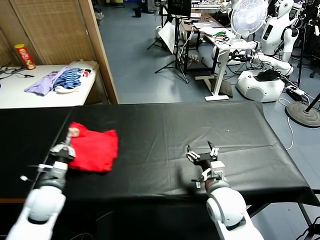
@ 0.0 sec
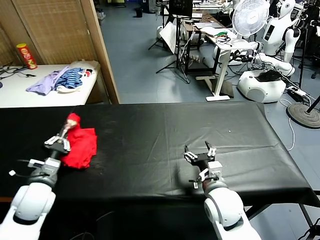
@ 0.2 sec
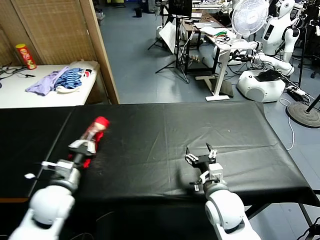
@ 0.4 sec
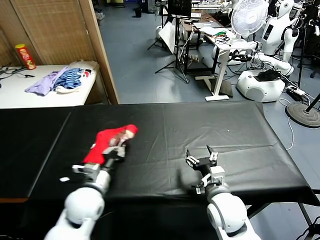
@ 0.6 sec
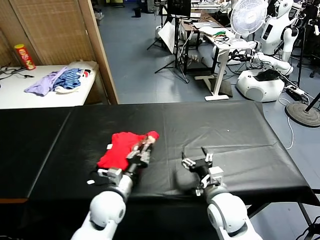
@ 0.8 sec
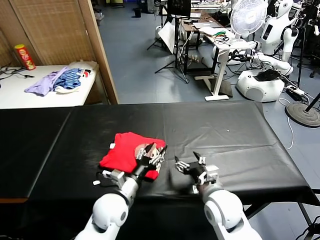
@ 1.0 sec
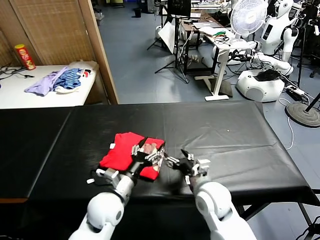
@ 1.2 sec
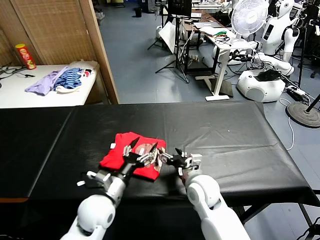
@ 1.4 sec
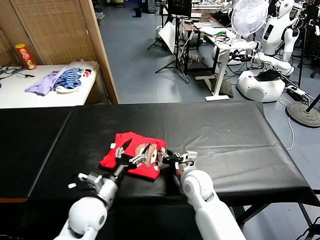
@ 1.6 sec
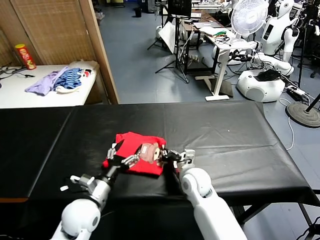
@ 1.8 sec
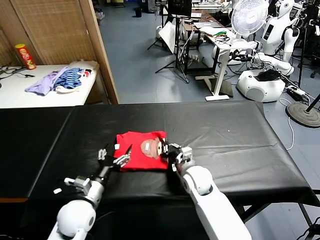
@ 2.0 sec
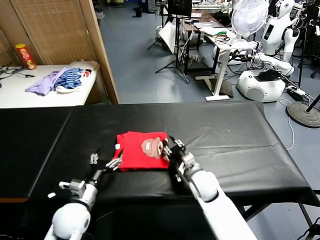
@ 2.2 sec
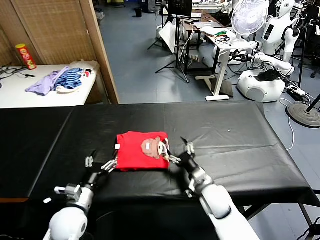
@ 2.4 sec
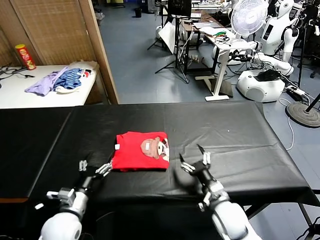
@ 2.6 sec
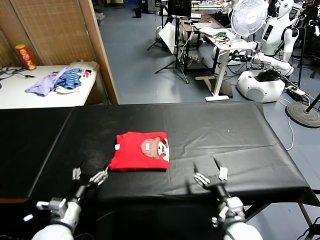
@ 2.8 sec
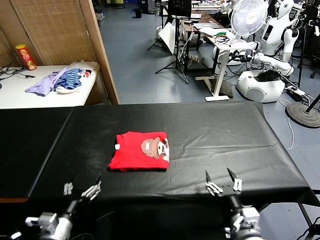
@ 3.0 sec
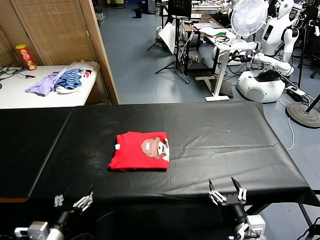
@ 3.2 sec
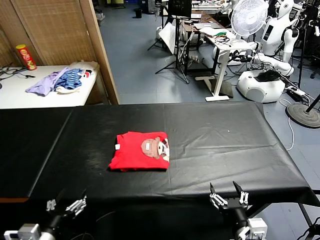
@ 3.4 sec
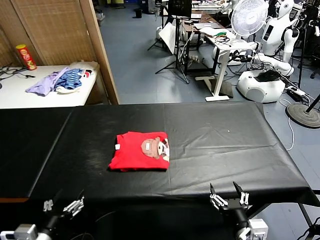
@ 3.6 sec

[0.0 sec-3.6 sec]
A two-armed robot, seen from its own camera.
Task of the whole recording: fold and organize the clothes.
Step, 1.2 sec to 2.2 sec: Drag the clothes to the center of the table.
0.0 sec to 1.8 sec: The left gripper goes about 10 cm to the right, and opens up. The right gripper shifts approximately 10 cm forward, to the left and downward, and closes up.
1.8 sec to 3.6 sec: The left gripper travels backward and to the left by approximately 20 cm, while the right gripper is displaced backward and to the right by roughly 30 cm, and opens its fingers.
